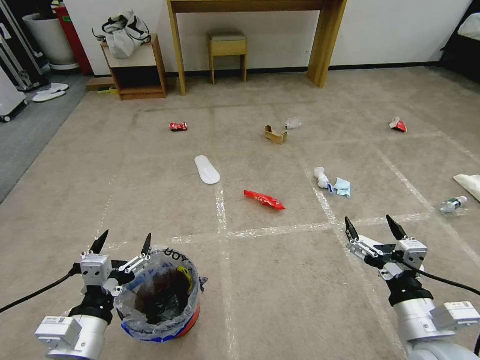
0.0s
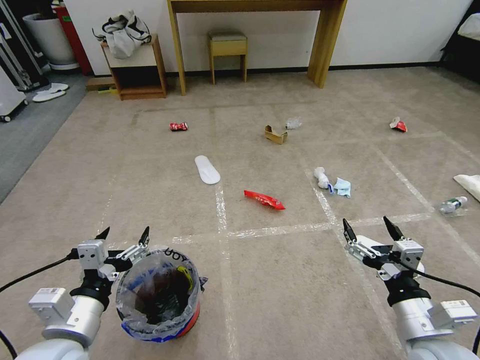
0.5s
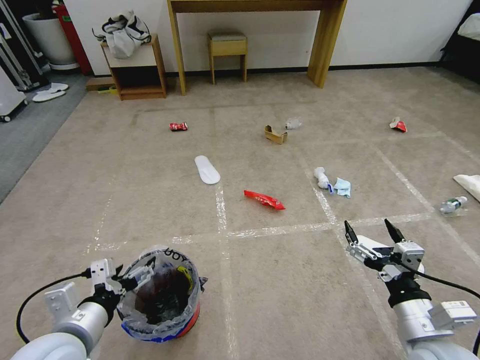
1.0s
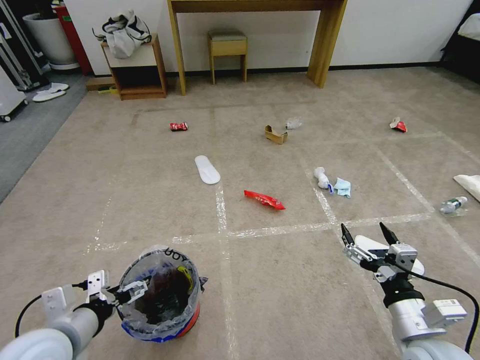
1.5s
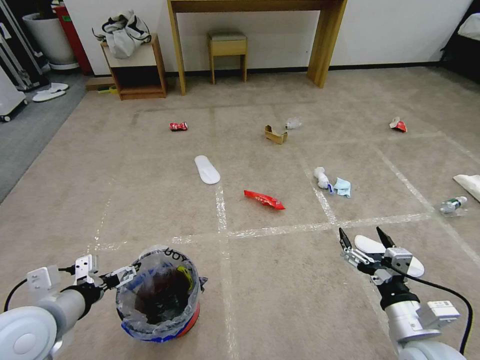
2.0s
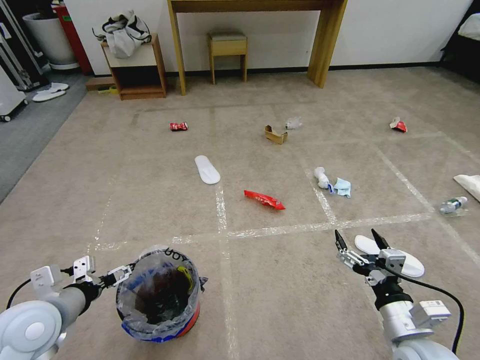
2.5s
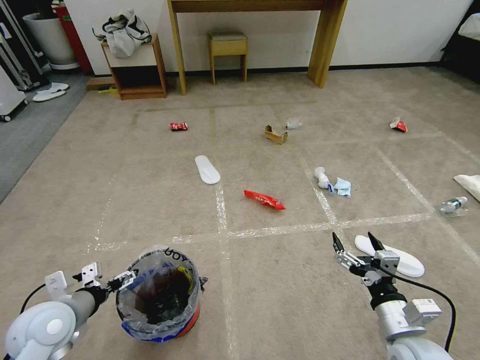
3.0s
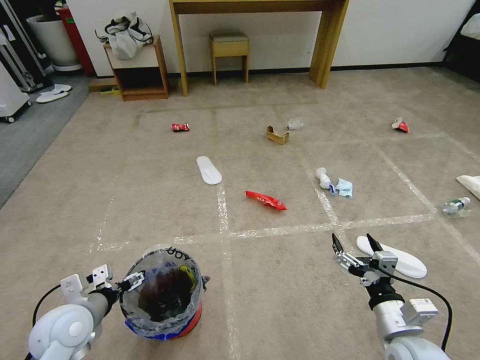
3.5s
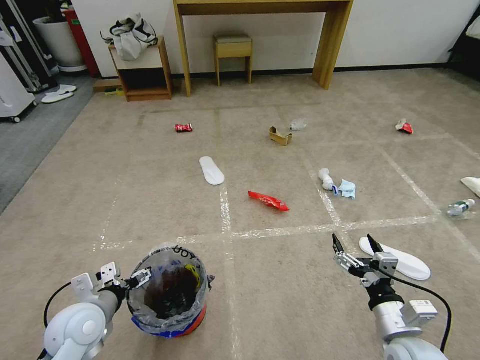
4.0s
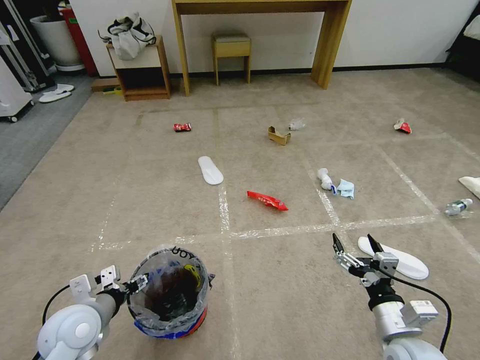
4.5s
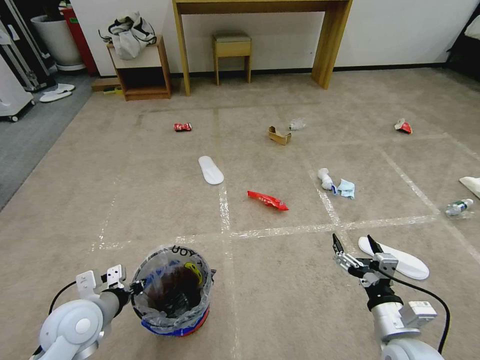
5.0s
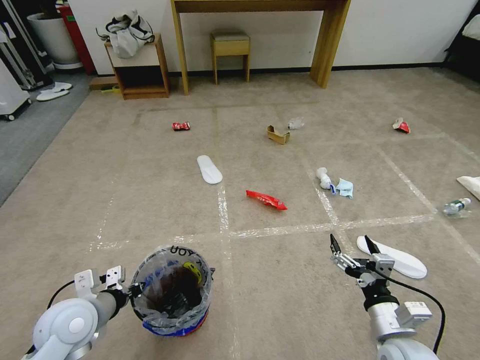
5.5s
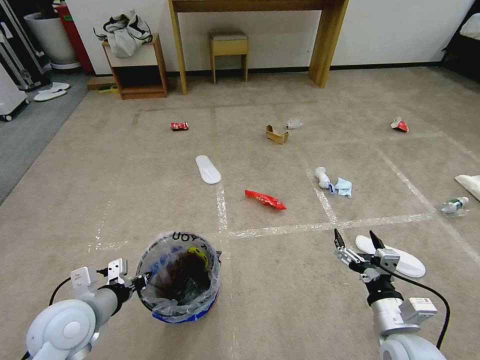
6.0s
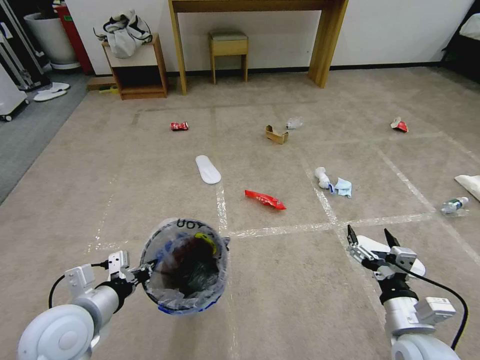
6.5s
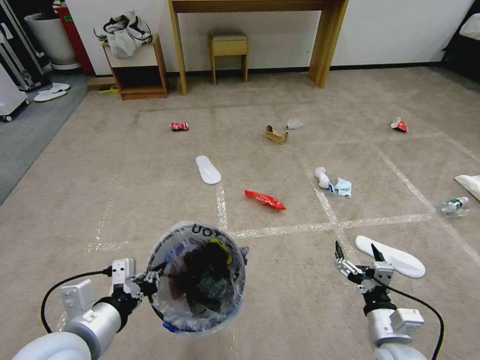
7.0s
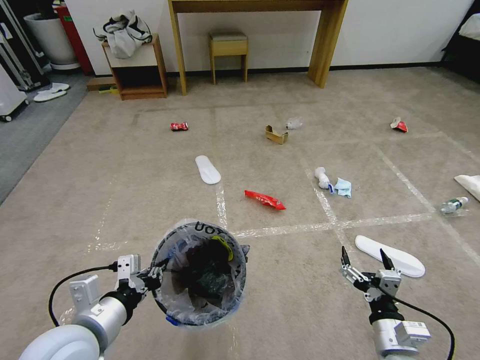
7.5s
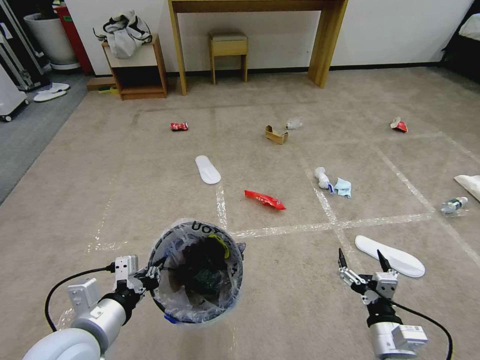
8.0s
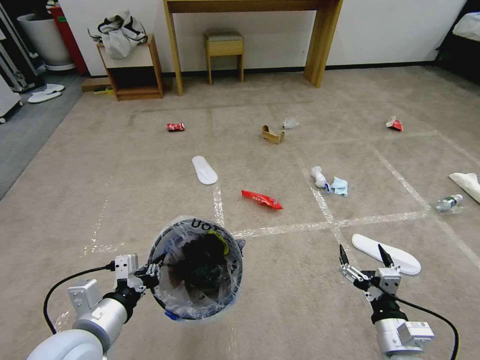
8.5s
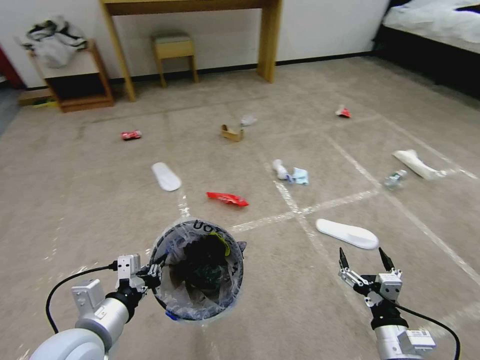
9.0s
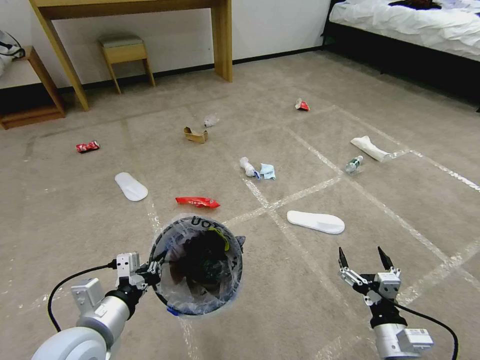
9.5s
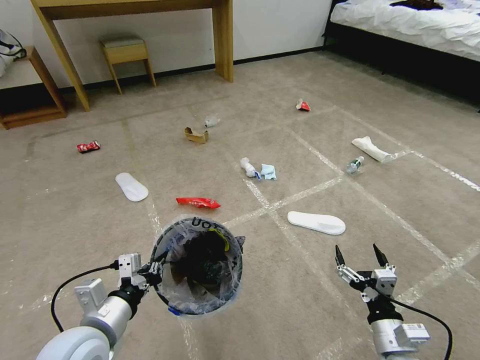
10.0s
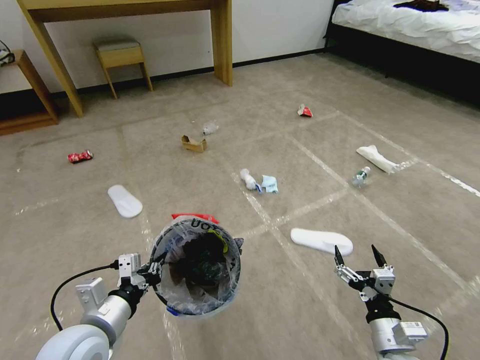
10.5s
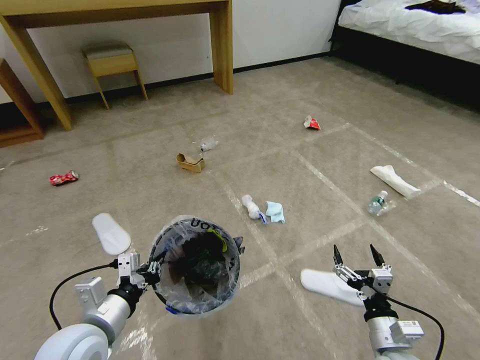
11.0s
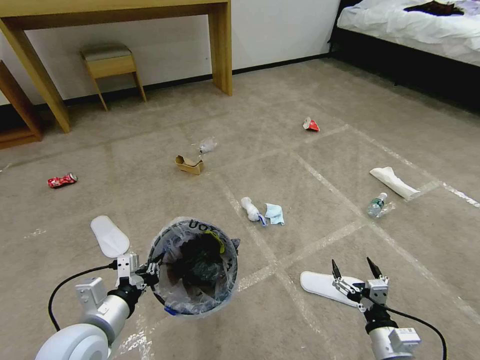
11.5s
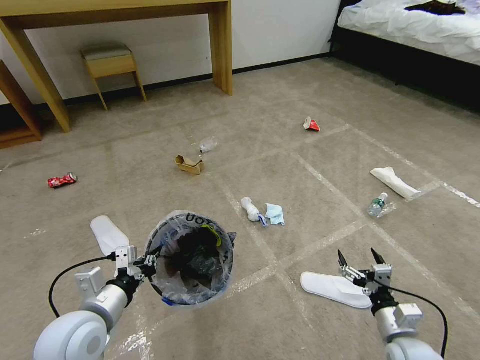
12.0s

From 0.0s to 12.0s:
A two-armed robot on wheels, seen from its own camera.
Task of the whole recording: Pick up the trash bin and place the garbage on the floor into it.
From 2.0s to 4.0s: The left gripper goes approximately 10 cm downward.
From 4.0s to 6.0s: The left gripper goes some 5 cm upward, and closes.
From 6.0s to 8.0s: The left gripper shifts some 5 cm backward. The right gripper ends up about 5 cm from where it was.
From 10.0s to 12.0s: The right gripper changes place by approximately 5 cm.

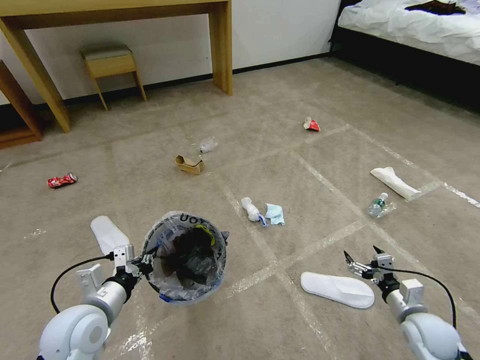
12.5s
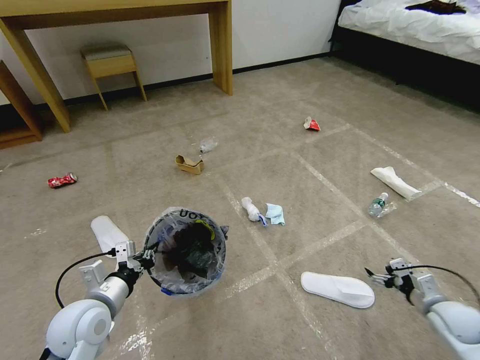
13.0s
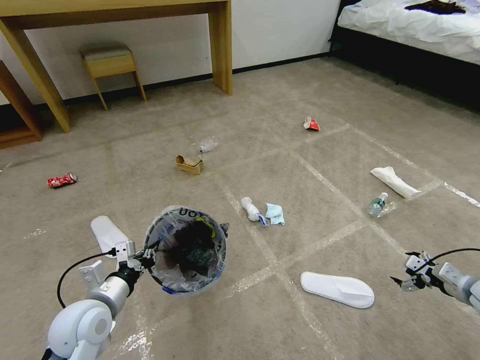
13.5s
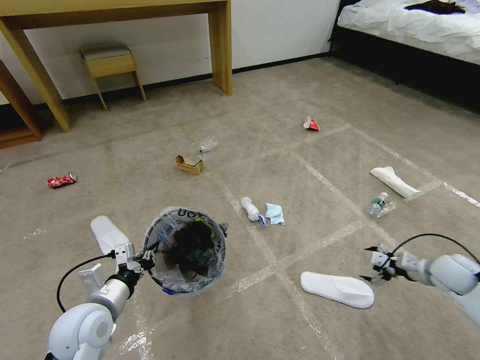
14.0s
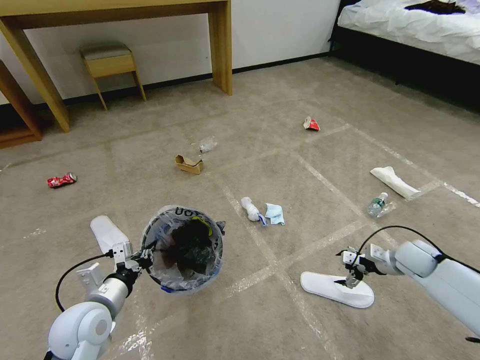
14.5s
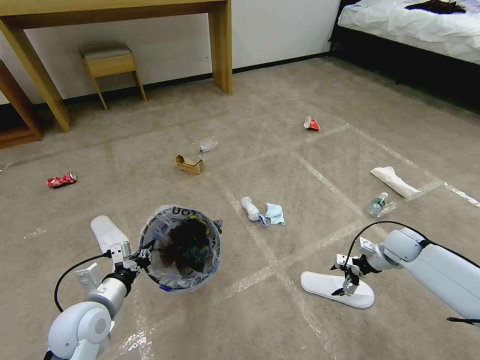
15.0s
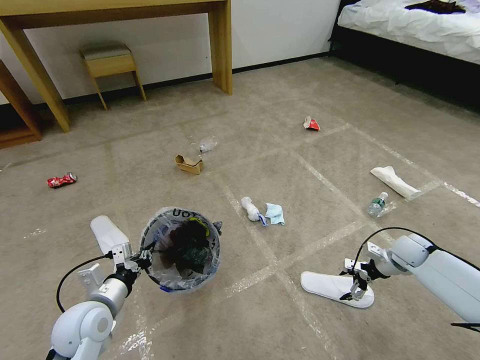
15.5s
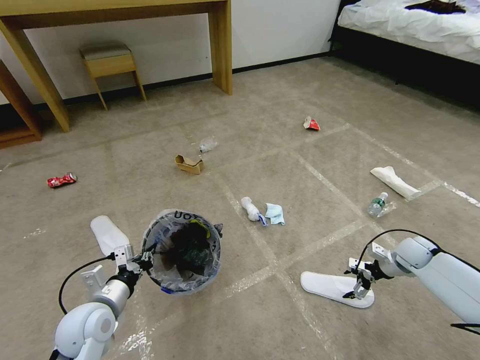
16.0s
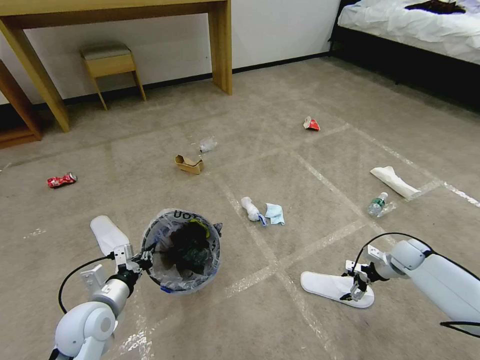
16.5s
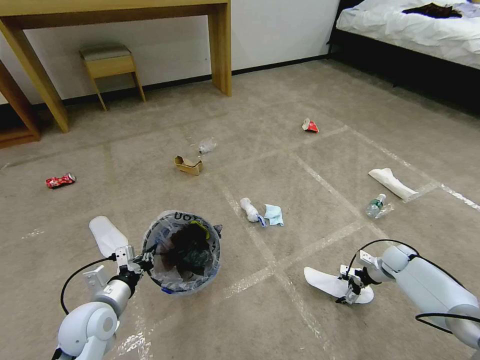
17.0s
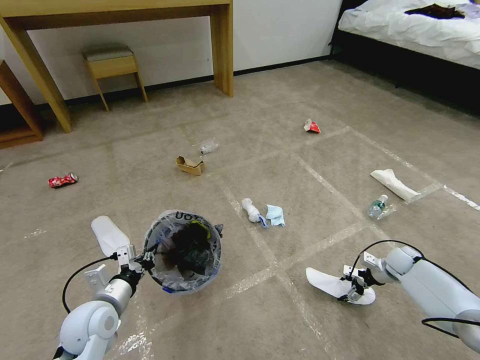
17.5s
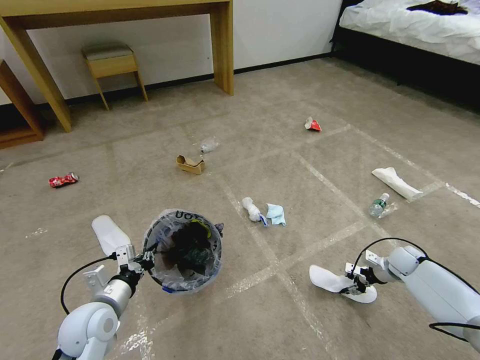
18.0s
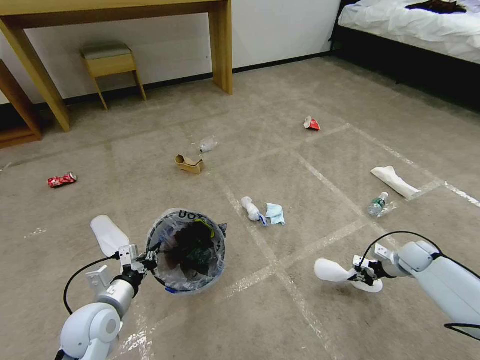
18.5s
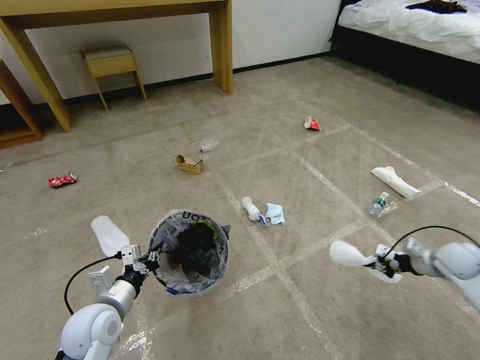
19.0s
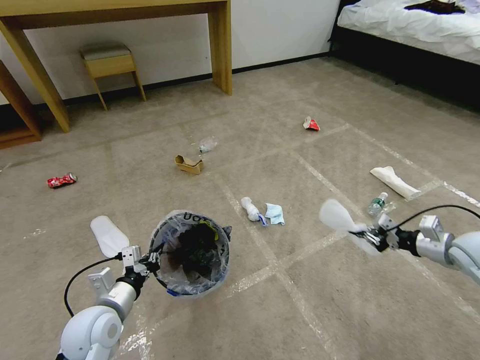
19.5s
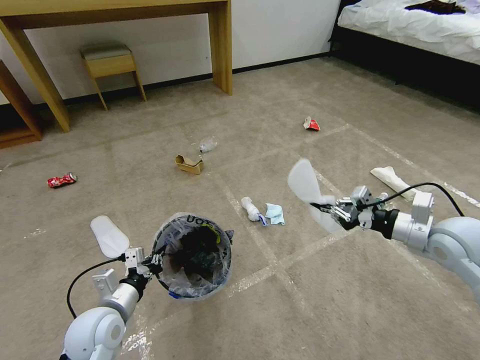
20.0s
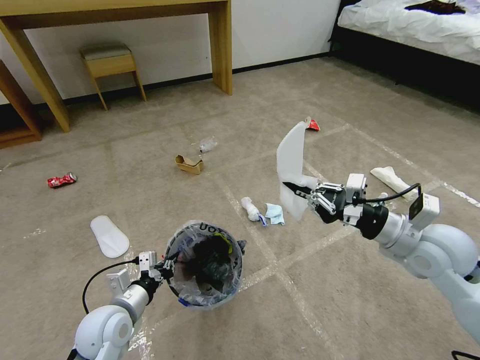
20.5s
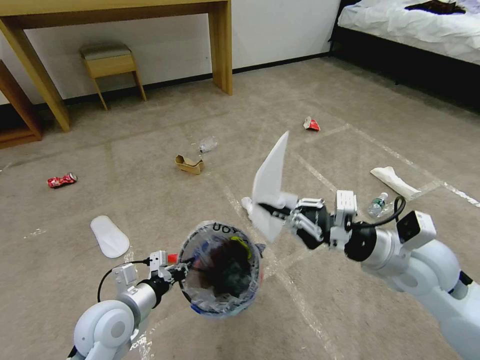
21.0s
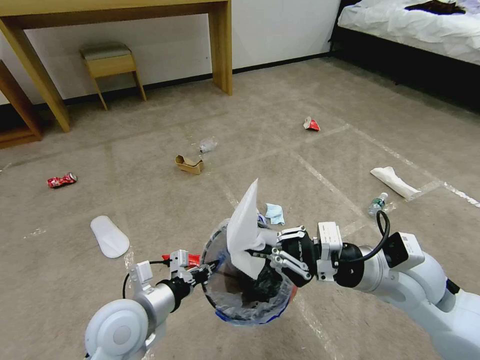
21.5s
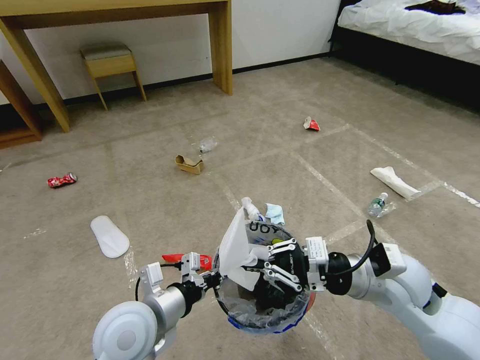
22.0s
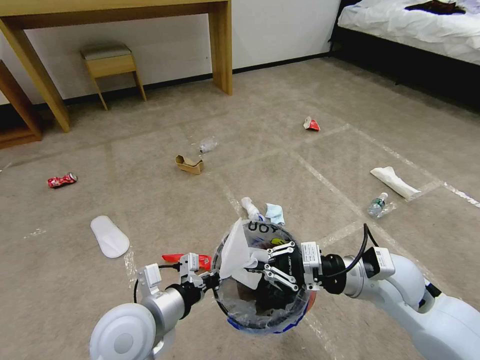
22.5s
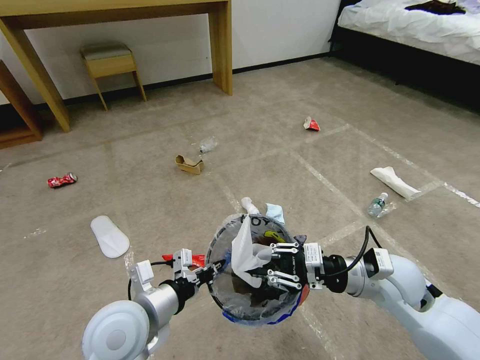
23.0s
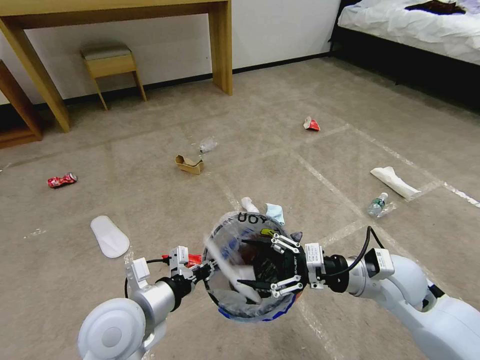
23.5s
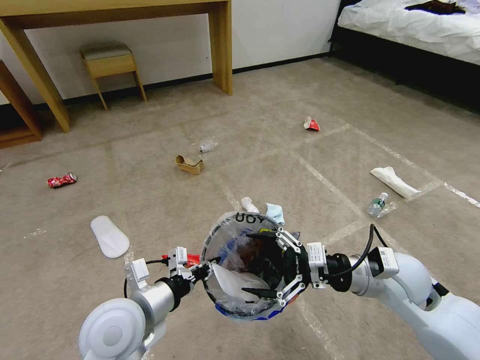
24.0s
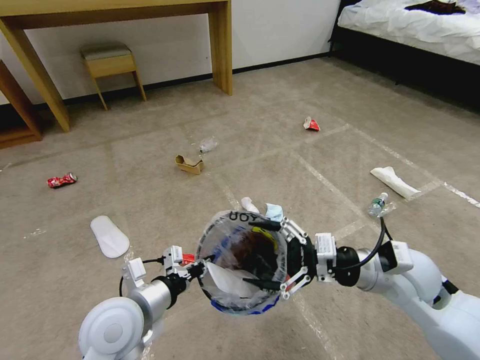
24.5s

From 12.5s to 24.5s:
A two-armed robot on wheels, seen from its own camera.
Task of the whole recording: Pick up the trash bin and place the garbage on the floor into it.
From 12.5s to 14.5s: The right gripper shifts approximately 15 cm forward.
From 14.5s to 16.5s: The right gripper goes approximately 5 cm downward.
From 16.5s to 18.5s: The right gripper closes.
From 18.5s to 20.5s: The right gripper shifts approximately 30 cm upward, to the left and backward.
From 20.5s to 22.5s: The right gripper heads to the left and downward, covering roughly 10 cm, while the left gripper is displaced upward and to the right by approximately 15 cm.
From 22.5s to 24.5s: The right gripper opens up.

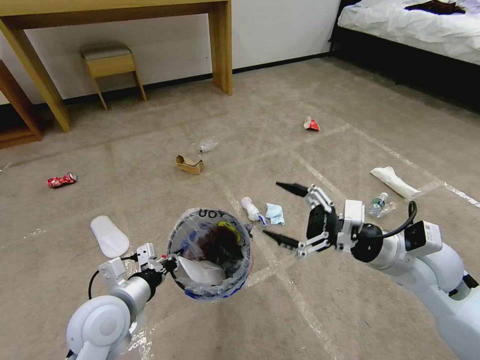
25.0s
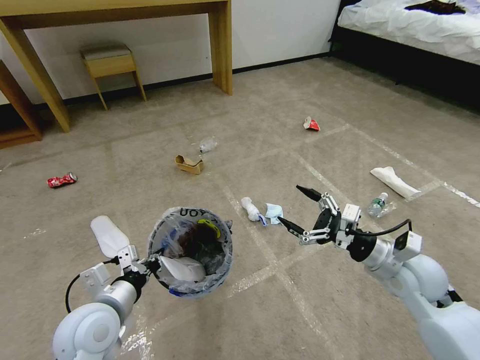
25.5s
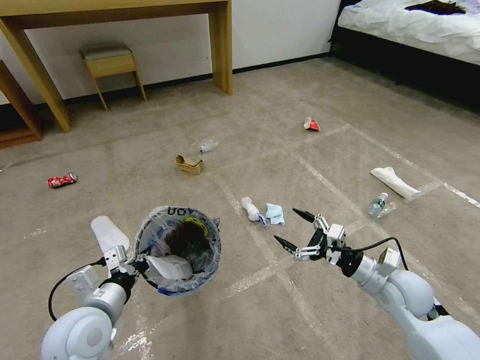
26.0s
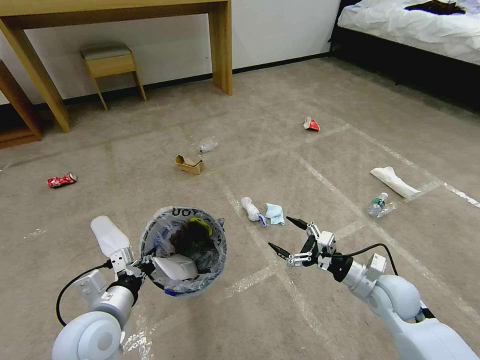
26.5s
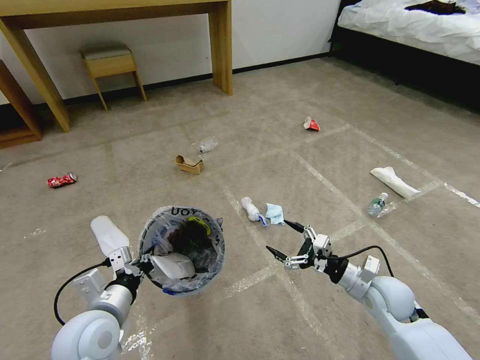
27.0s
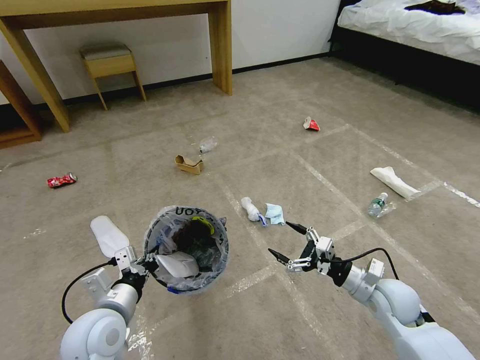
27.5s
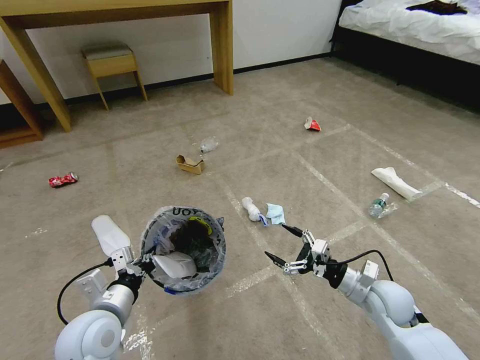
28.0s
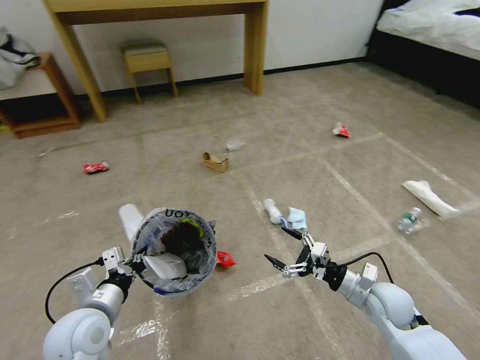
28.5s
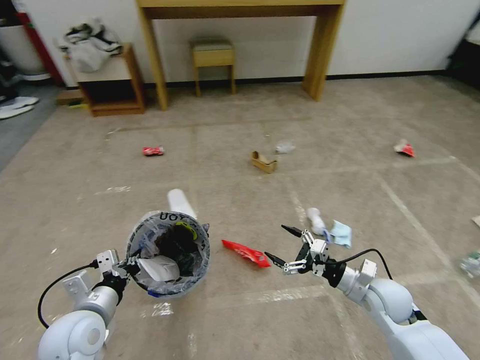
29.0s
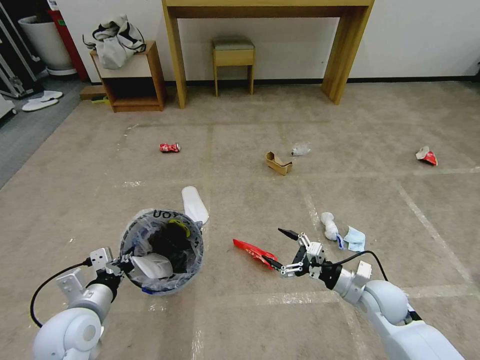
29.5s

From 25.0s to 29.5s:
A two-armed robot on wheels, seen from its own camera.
Task of the whole recording: Pick up the trash bin and place the garbage on the floor into it.
From 25.0s to 27.0s: The right gripper travels downward by about 15 cm.
From 27.0s to 29.5s: The left gripper ends up roughly 5 cm from where it was.
